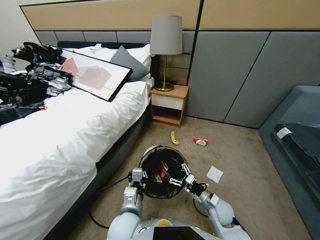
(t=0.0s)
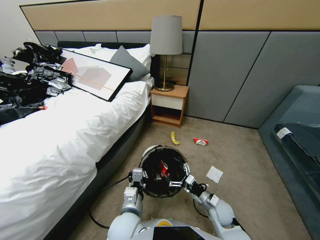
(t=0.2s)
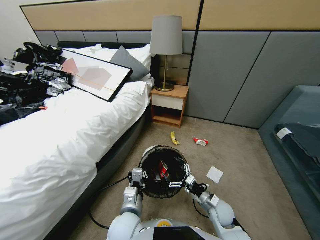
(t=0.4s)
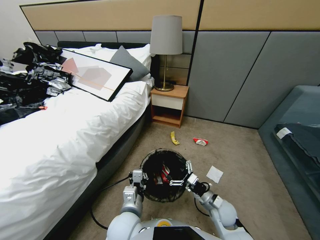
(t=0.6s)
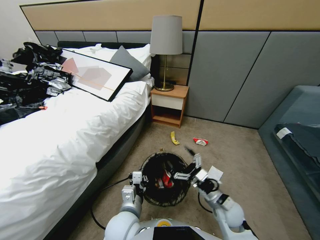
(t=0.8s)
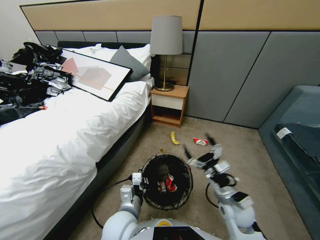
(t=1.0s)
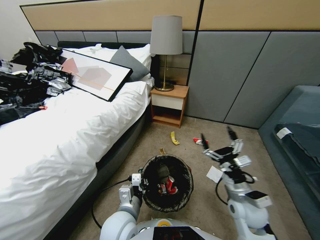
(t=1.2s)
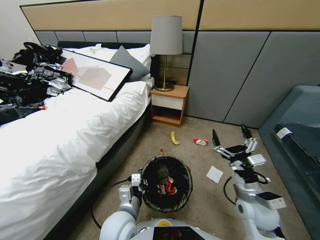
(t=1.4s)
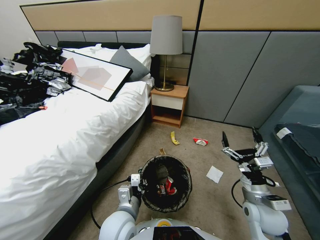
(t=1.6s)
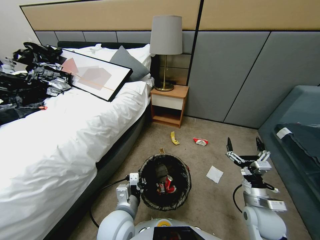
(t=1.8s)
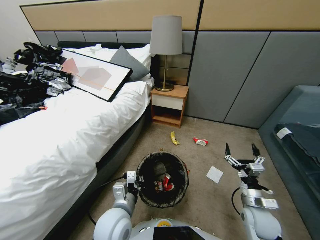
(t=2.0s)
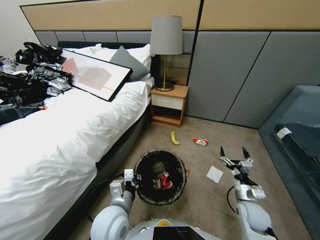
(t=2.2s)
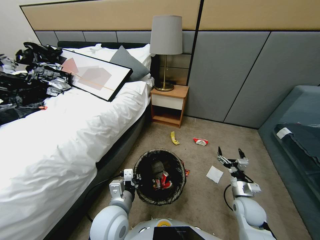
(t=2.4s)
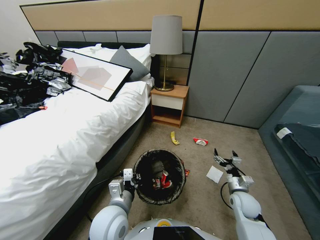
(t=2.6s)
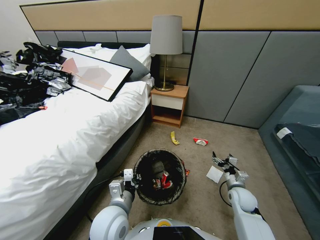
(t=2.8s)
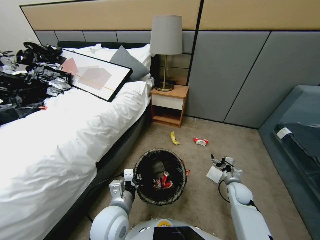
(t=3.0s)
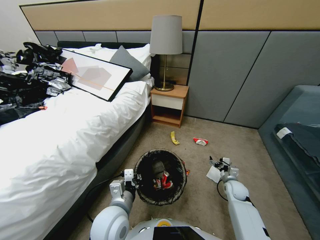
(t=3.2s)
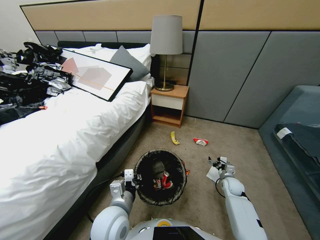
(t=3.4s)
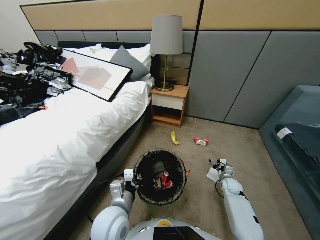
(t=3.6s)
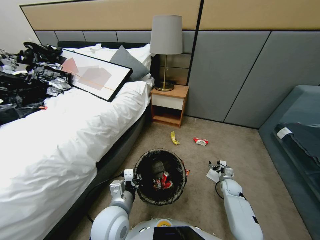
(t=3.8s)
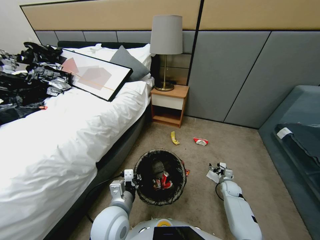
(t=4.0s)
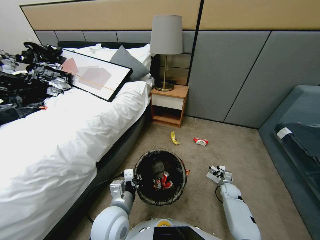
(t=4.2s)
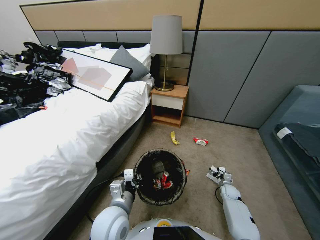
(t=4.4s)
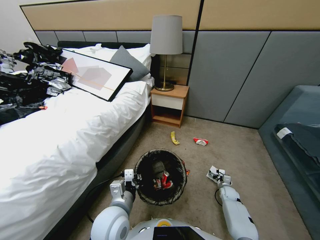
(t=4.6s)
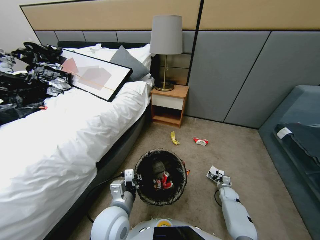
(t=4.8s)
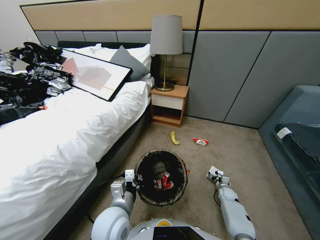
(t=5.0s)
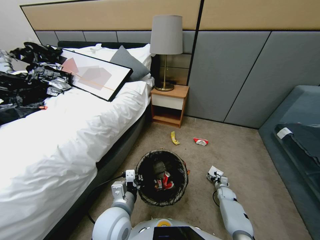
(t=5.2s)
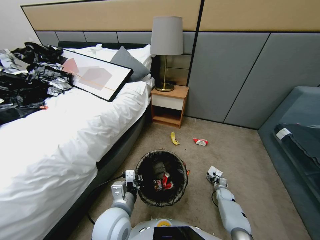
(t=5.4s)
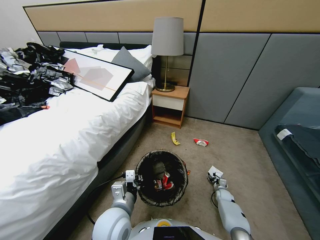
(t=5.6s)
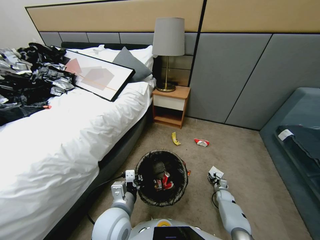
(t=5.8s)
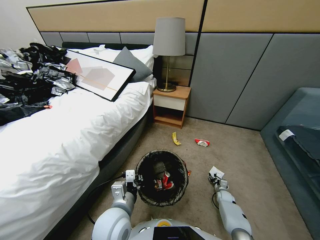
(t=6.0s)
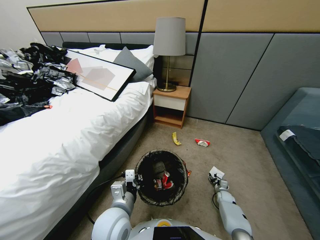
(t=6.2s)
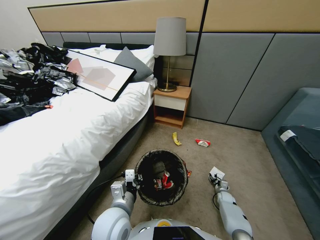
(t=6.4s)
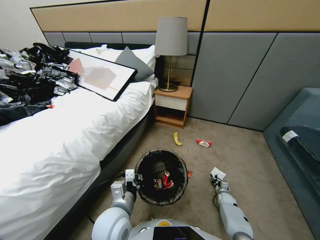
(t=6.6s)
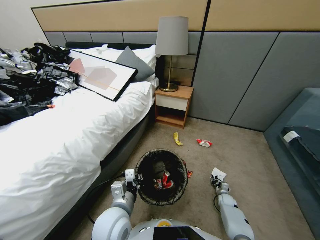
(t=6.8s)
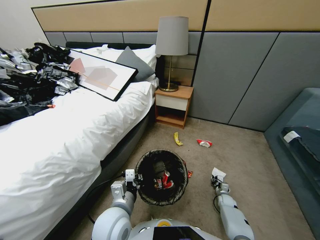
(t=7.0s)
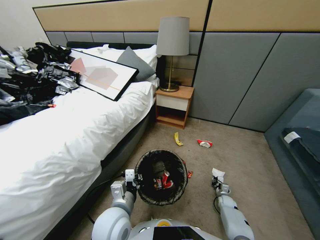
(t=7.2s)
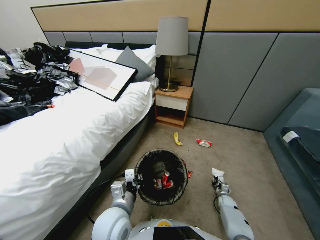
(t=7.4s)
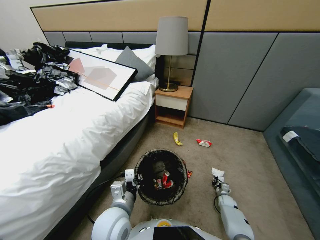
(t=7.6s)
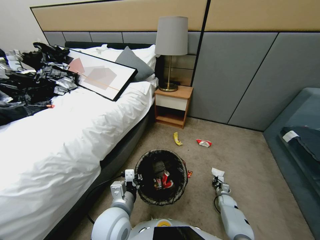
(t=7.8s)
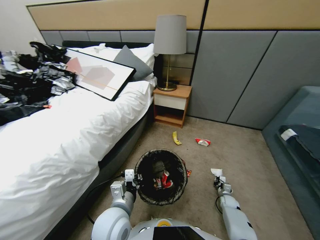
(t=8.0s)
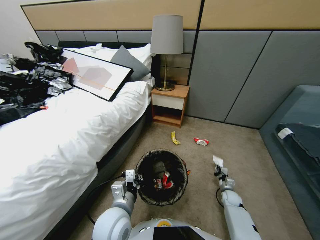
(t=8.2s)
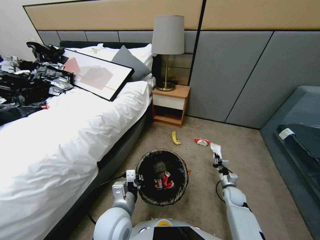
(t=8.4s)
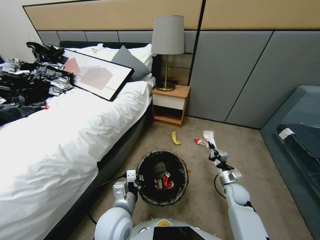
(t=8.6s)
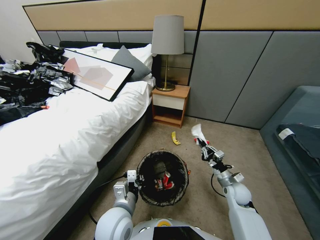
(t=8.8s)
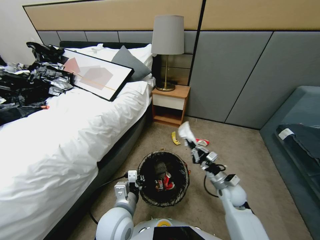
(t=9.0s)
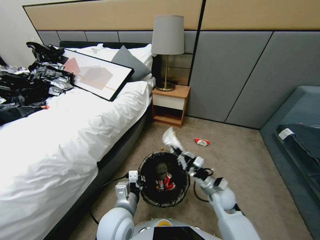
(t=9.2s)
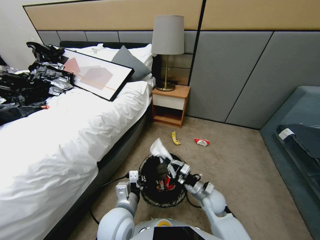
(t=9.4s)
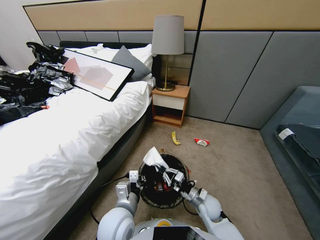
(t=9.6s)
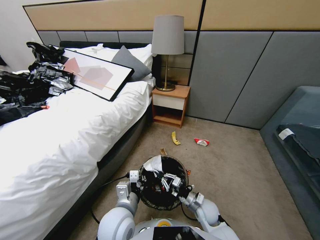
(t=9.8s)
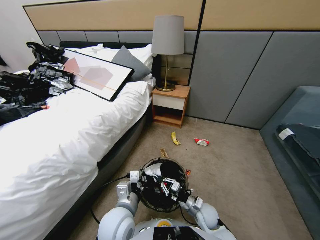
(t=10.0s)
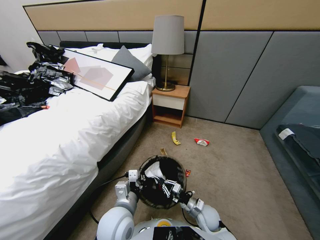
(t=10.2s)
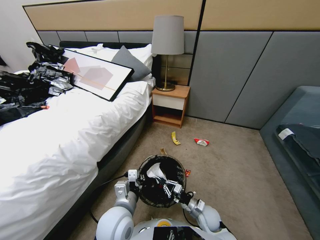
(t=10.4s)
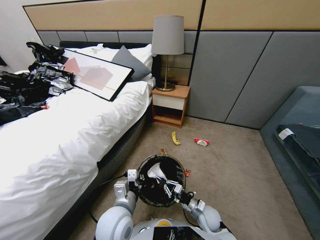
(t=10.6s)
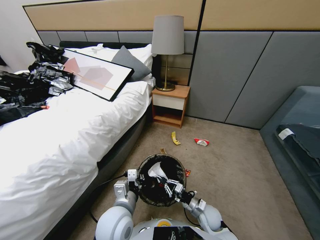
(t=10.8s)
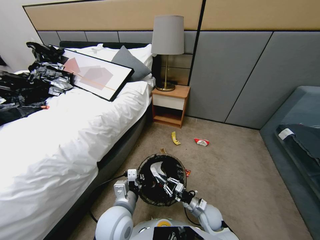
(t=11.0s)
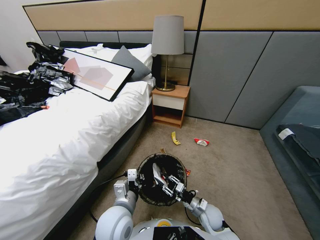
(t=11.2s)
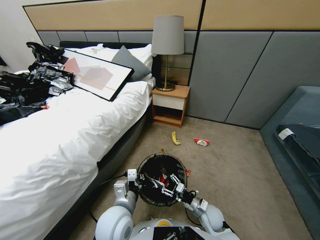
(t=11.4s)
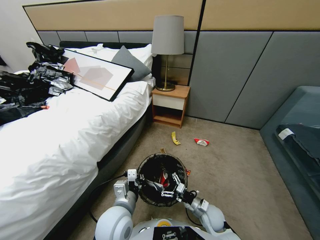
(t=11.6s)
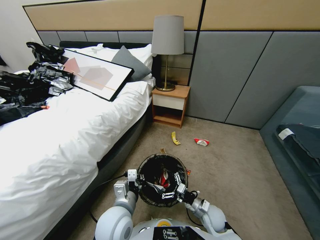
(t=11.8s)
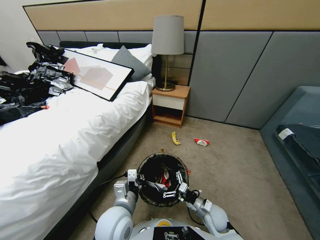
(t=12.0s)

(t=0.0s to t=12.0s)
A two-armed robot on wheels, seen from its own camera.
Task of the whole recording: Pick up the trash bin, then pick up the garbage from the floor and place it into the trash bin.
t=0.0s - t=1.6s: The right gripper shifts about 15 cm upward and to the right.
t=1.6s - t=3.0s: The right gripper travels downward and forward by about 20 cm.
t=3.0s - t=4.4s: The right gripper is displaced downward by some 10 cm.
t=4.4s - t=6.0s: The right gripper goes approximately 5 cm downward, and closes.
t=6.0s - t=7.6s: The right gripper closes up.
t=7.6s - t=9.0s: The right gripper travels upward and to the left by about 35 cm.
t=9.0s - t=10.4s: The right gripper heads downward and backward, covering some 15 cm.
t=10.4s - t=12.0s: The right gripper opens up.

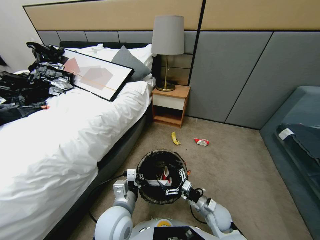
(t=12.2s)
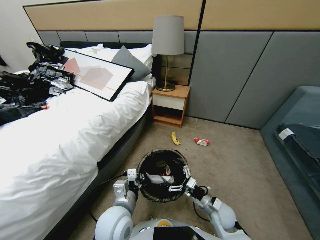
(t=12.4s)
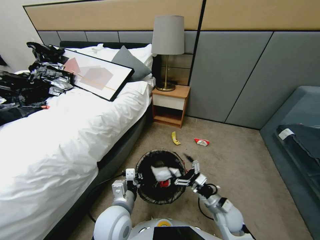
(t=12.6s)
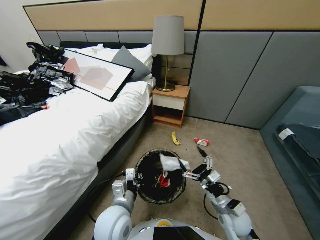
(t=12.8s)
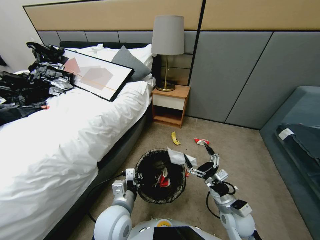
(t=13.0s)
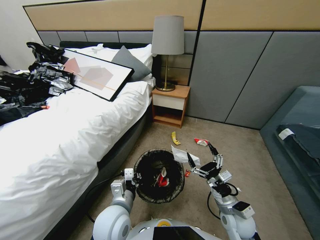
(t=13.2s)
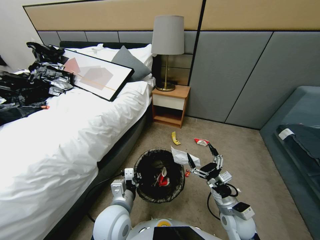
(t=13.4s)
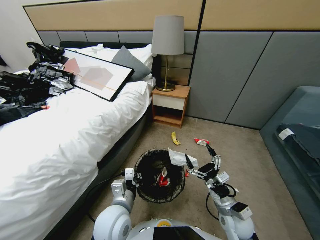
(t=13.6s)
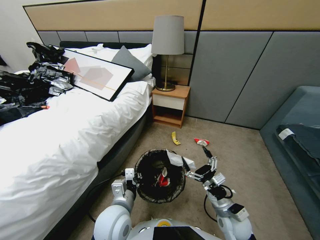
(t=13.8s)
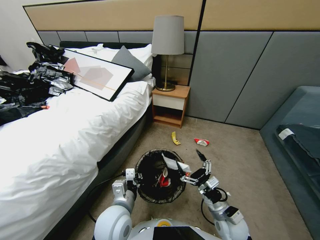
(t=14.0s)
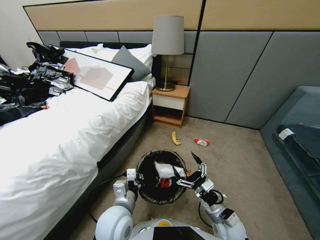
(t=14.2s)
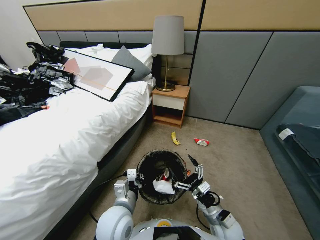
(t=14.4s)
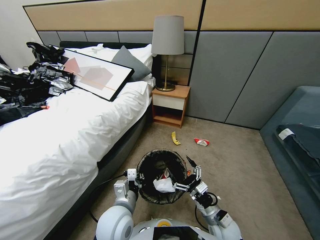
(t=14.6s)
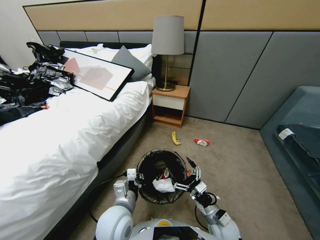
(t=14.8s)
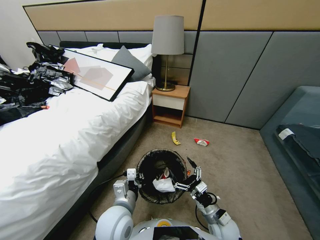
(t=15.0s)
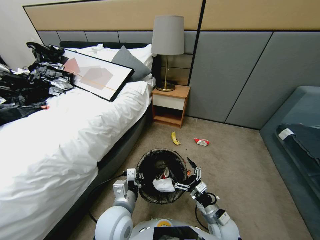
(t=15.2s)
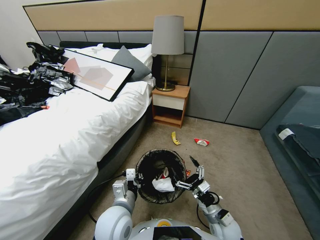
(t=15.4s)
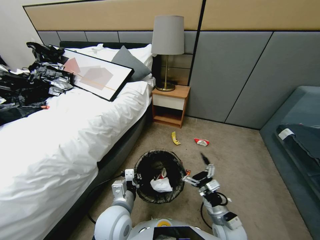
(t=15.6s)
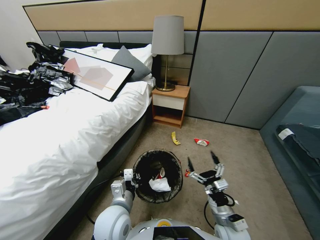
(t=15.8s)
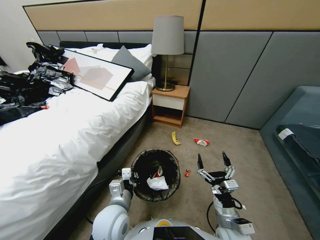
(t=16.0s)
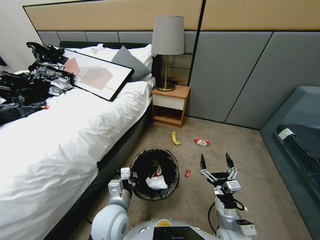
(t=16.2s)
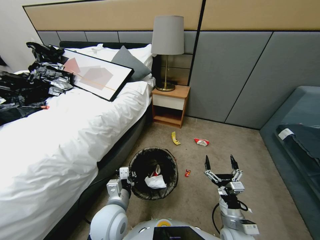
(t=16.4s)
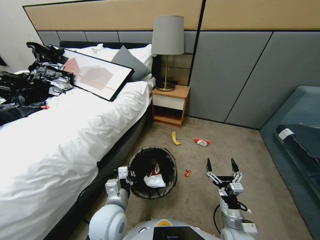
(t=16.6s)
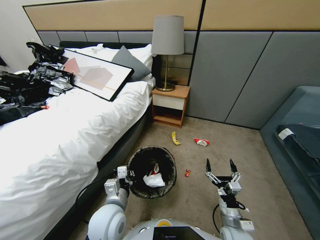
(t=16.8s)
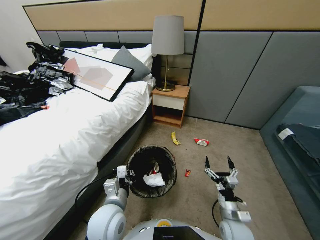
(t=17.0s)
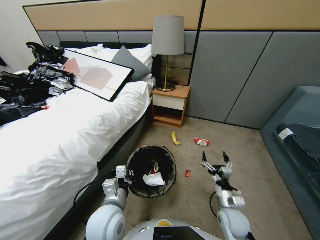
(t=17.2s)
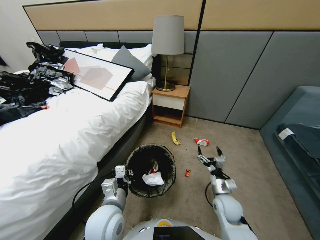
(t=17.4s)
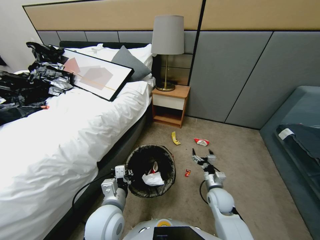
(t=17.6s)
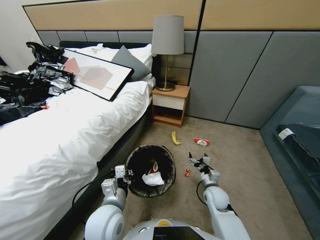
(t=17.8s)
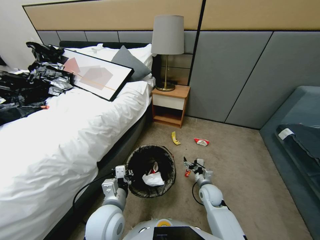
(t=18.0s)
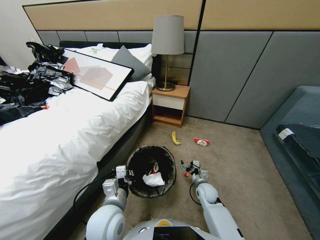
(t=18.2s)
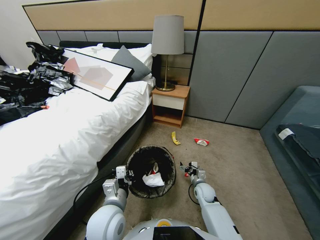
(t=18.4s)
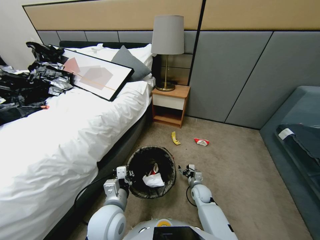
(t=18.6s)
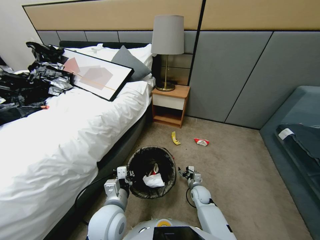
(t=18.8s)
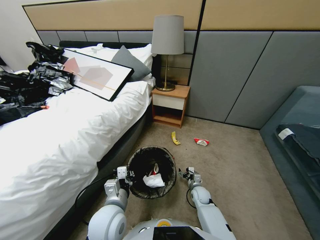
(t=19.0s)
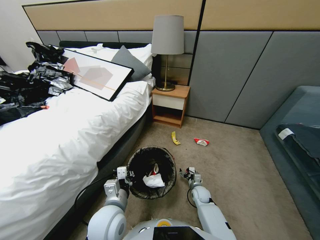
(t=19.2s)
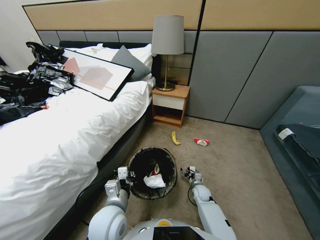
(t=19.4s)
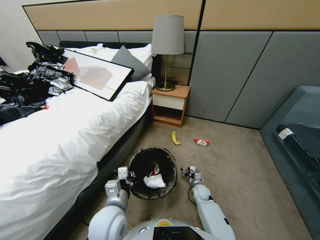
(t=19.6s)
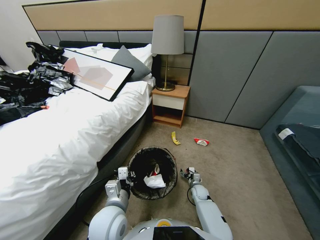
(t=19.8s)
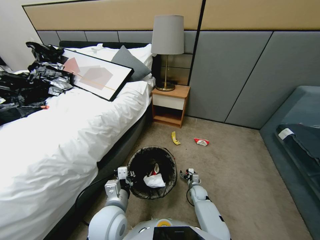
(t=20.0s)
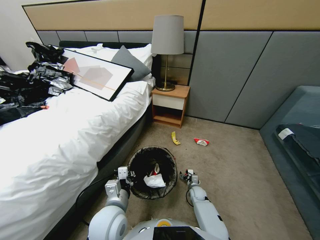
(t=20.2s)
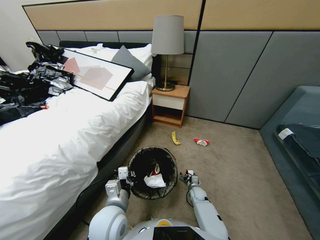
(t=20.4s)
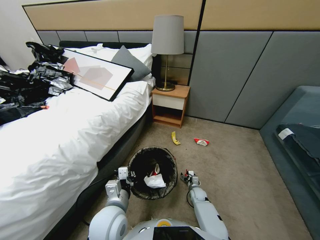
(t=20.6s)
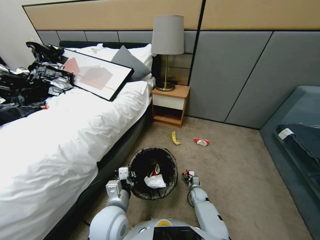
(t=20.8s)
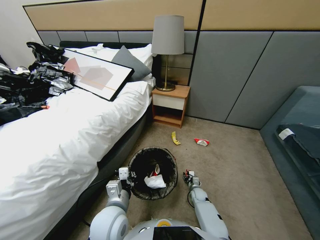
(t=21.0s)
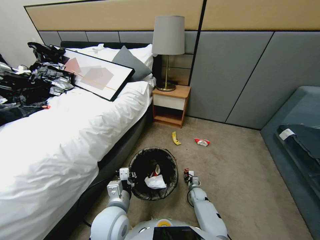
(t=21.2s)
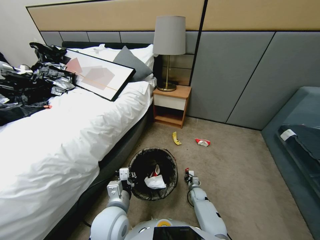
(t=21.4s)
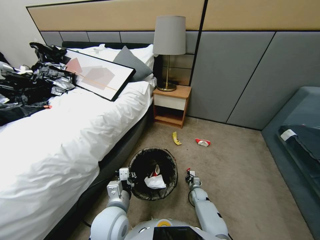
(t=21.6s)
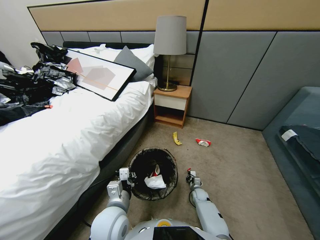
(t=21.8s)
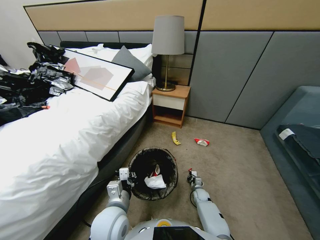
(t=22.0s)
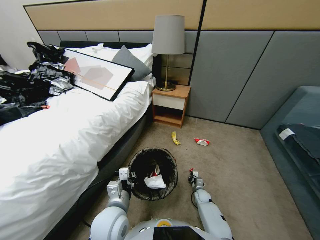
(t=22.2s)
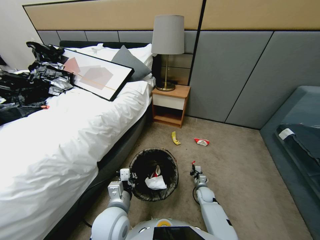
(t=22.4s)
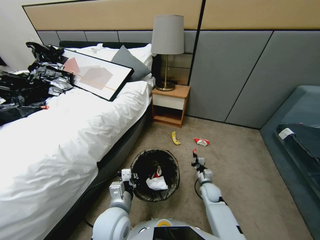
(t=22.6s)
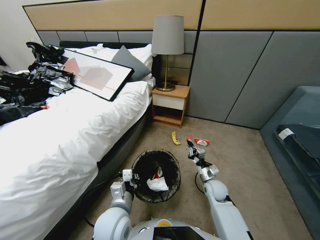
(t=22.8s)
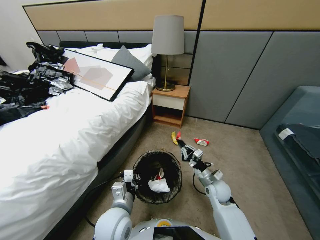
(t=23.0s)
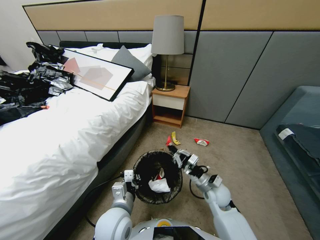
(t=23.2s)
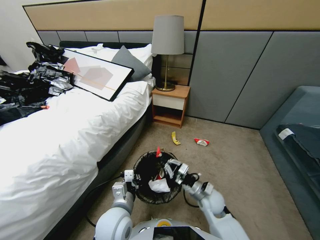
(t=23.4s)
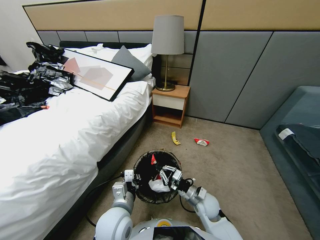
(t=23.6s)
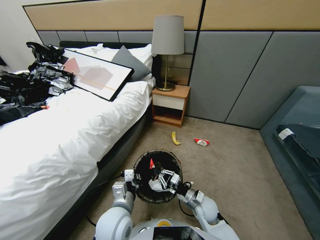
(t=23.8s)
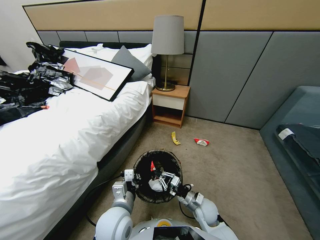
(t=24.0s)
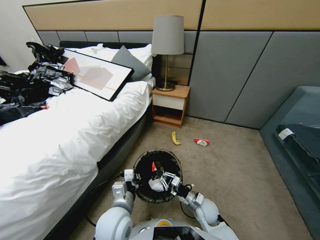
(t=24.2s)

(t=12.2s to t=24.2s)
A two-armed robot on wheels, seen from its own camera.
Task of the whole recording: Pick up the trash bin, then pick up the garbage from the floor and place it into the trash bin.
t=12.2s - t=13.8s: The right gripper shifts roughly 5 cm upward.
t=13.8s - t=15.2s: The grippers make only small movements.
t=16.6s - t=18.2s: The right gripper moves forward and downward, some 20 cm.
t=18.2s - t=19.8s: The right gripper moves downward, roughly 10 cm.
t=19.8s - t=21.2s: The right gripper goes about 5 cm downward, and closes.
t=21.2s - t=22.6s: The right gripper is displaced upward by some 15 cm.
t=22.6s - t=24.2s: The right gripper moves backward and to the left, roughly 10 cm, and moves roughly 10 cm upward and comes back.
